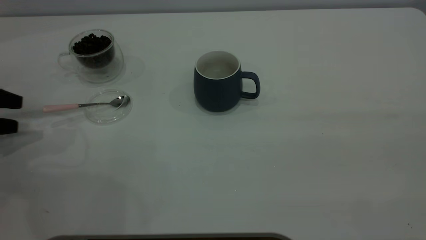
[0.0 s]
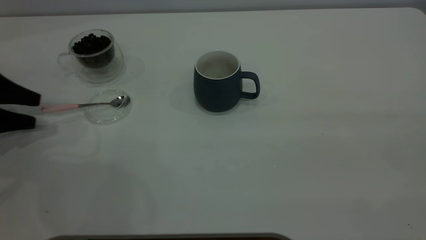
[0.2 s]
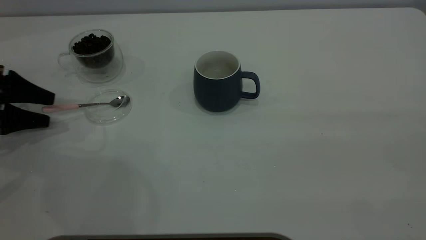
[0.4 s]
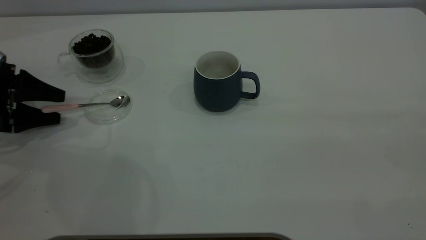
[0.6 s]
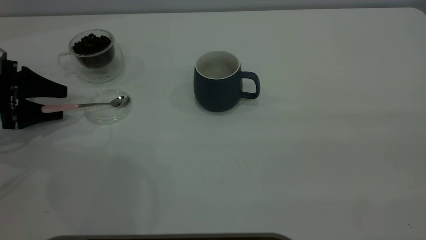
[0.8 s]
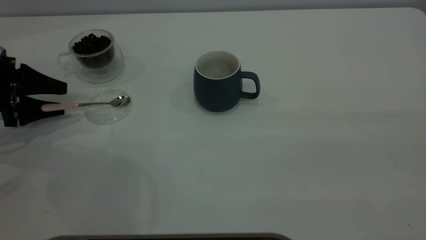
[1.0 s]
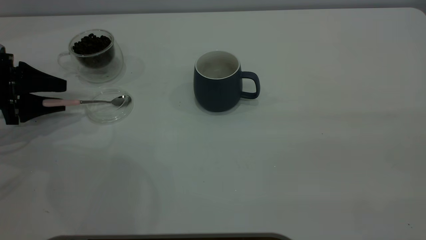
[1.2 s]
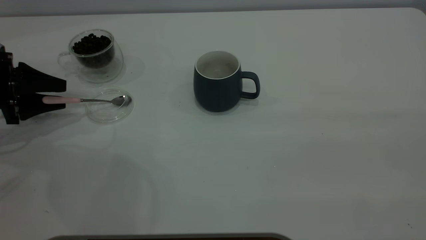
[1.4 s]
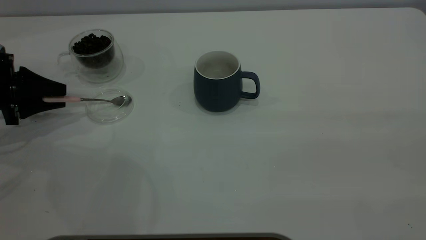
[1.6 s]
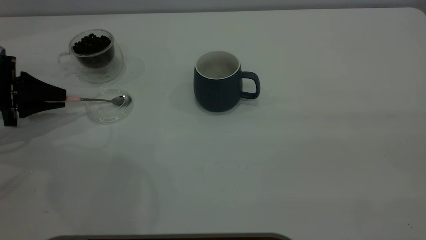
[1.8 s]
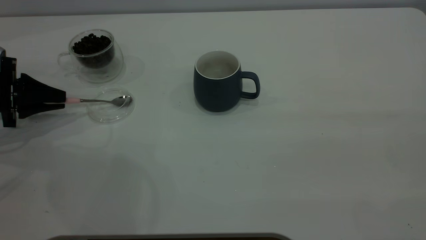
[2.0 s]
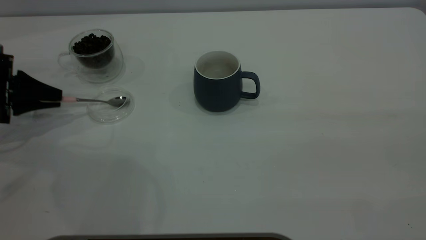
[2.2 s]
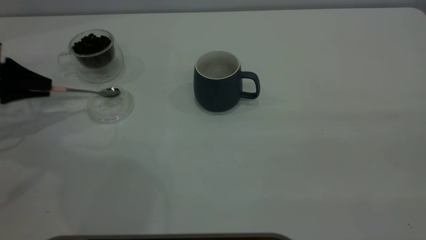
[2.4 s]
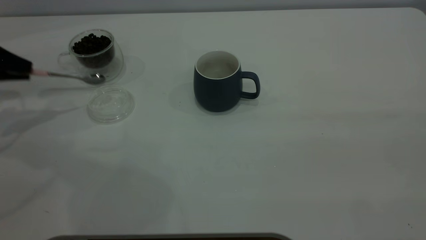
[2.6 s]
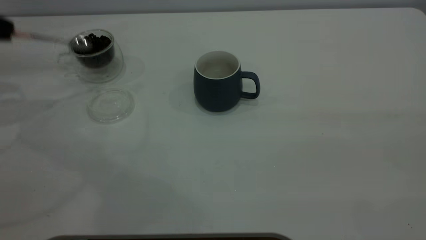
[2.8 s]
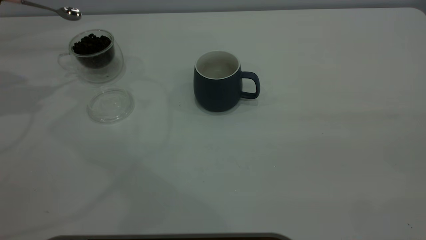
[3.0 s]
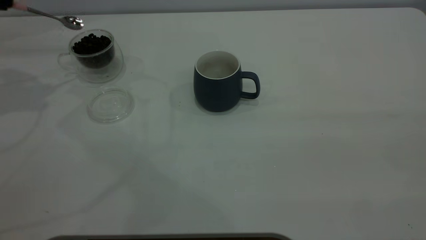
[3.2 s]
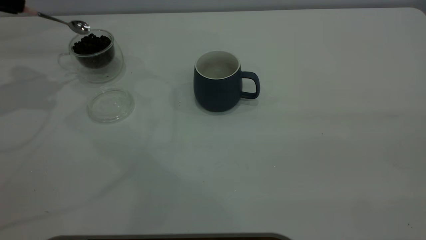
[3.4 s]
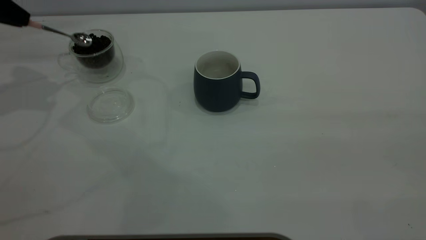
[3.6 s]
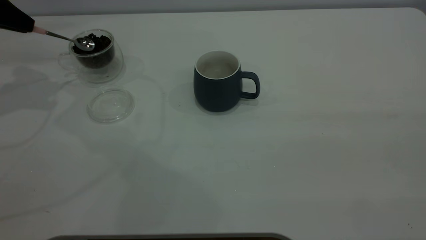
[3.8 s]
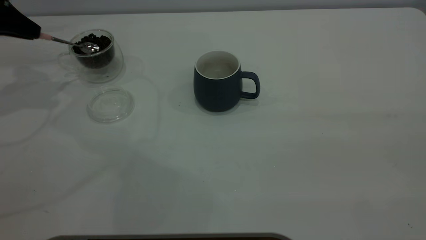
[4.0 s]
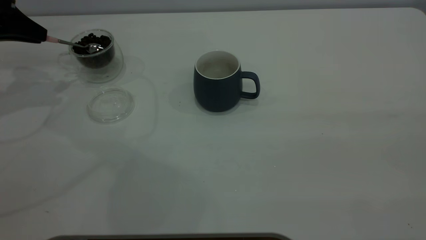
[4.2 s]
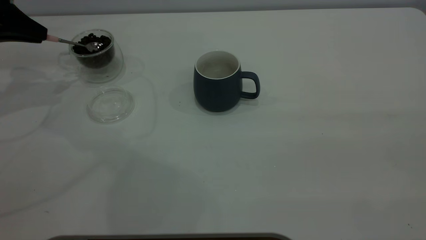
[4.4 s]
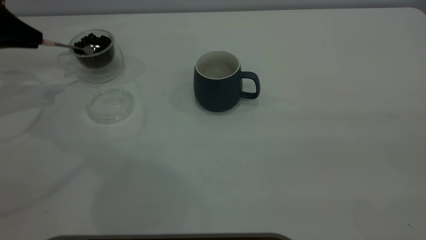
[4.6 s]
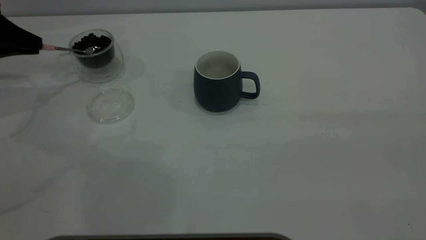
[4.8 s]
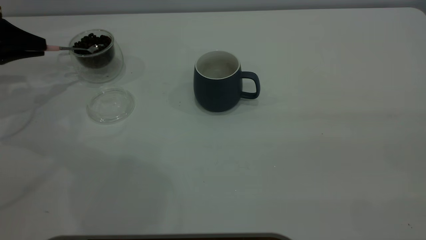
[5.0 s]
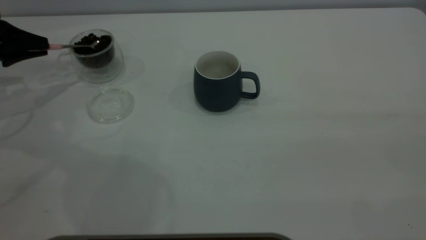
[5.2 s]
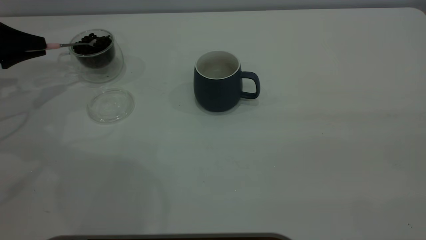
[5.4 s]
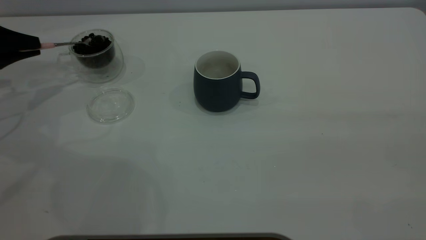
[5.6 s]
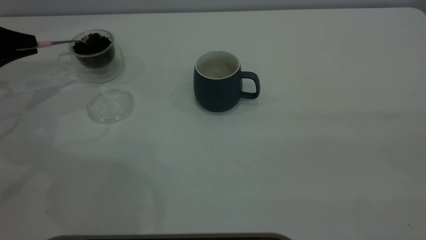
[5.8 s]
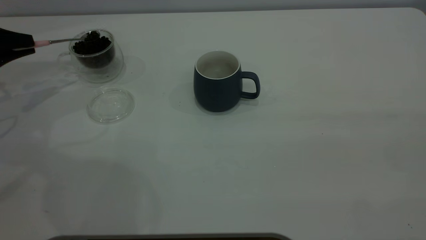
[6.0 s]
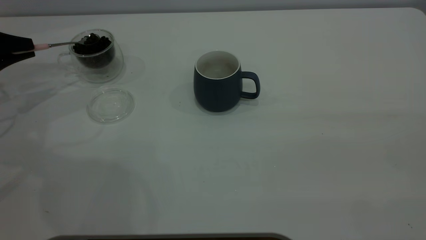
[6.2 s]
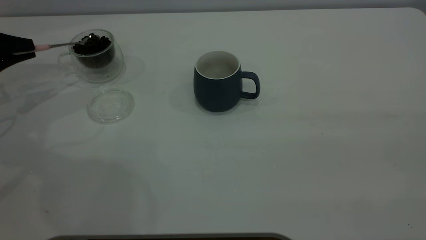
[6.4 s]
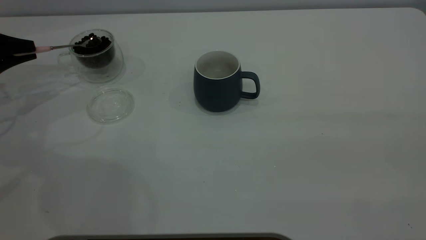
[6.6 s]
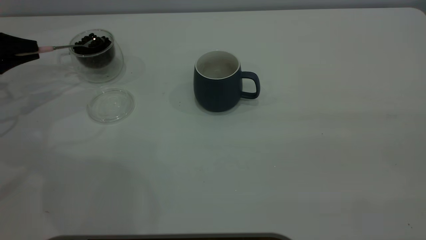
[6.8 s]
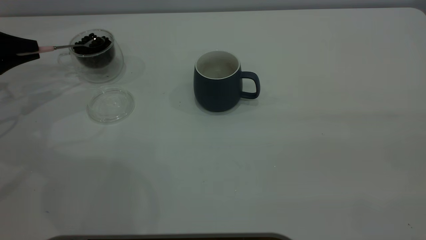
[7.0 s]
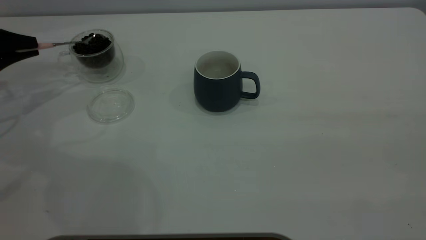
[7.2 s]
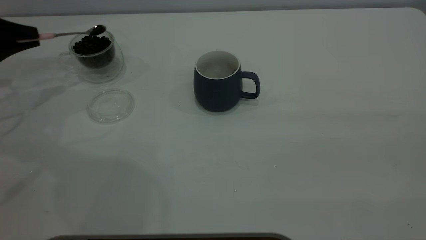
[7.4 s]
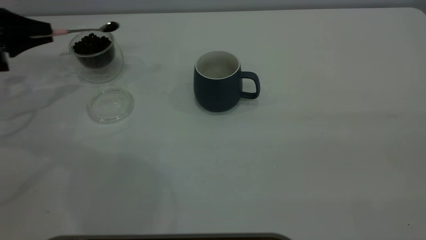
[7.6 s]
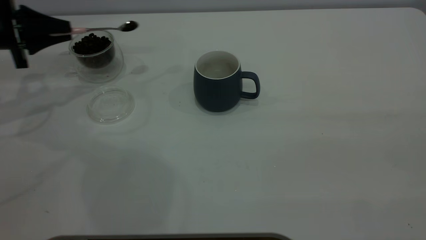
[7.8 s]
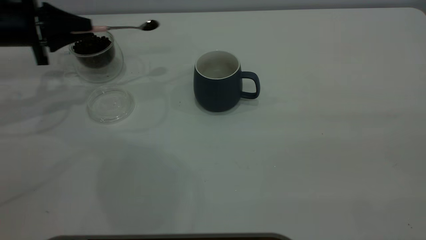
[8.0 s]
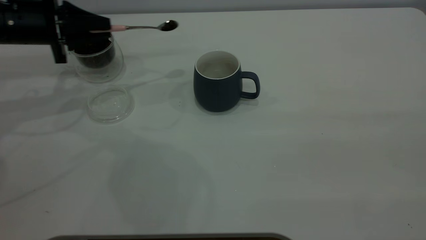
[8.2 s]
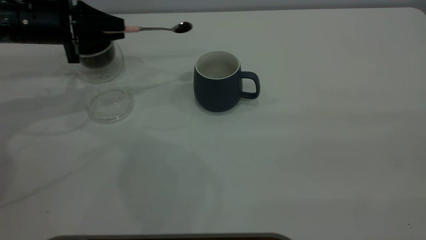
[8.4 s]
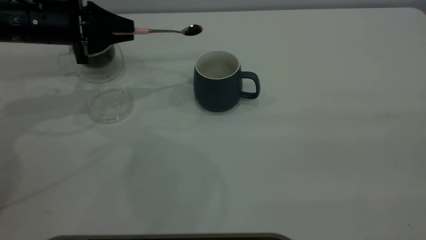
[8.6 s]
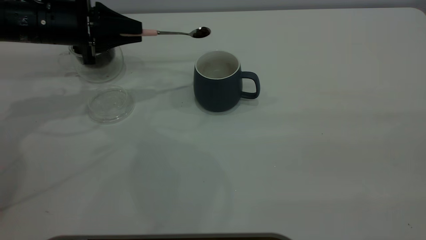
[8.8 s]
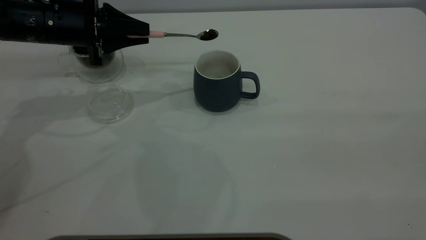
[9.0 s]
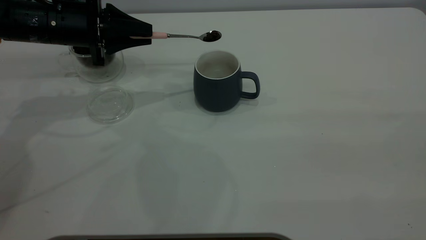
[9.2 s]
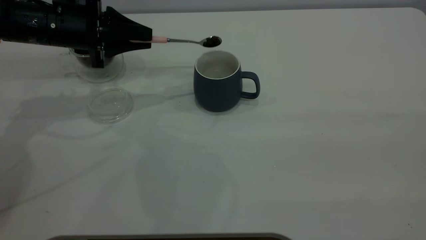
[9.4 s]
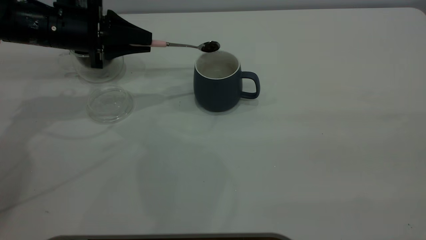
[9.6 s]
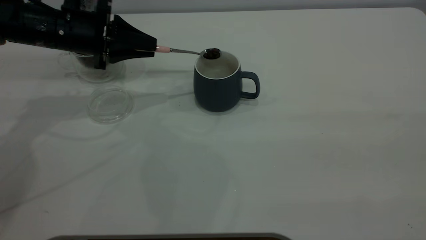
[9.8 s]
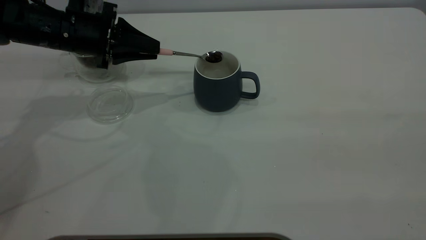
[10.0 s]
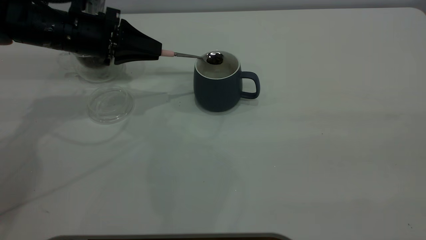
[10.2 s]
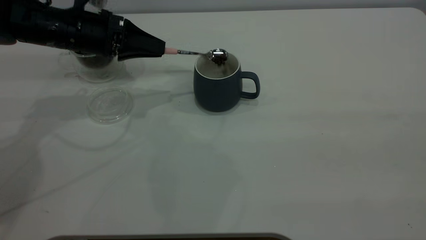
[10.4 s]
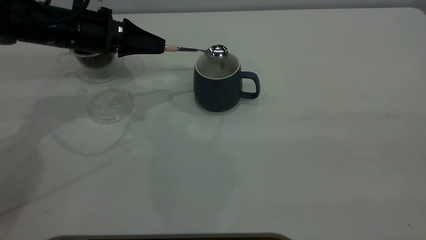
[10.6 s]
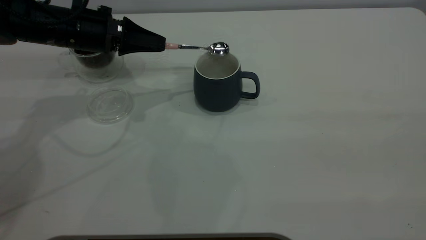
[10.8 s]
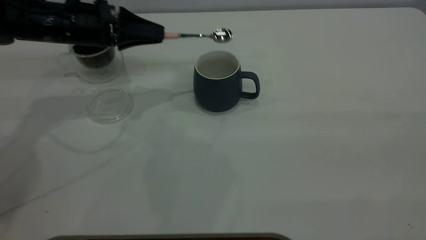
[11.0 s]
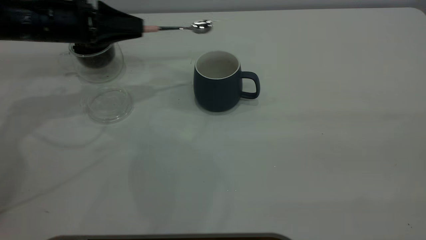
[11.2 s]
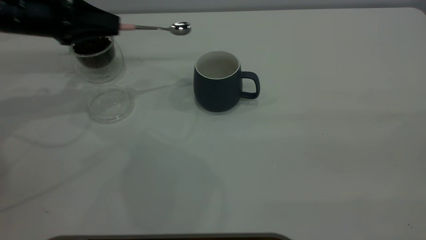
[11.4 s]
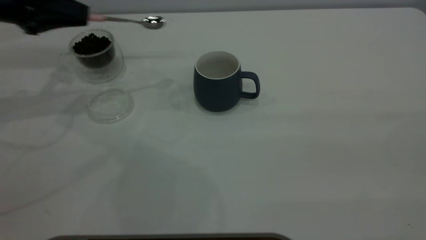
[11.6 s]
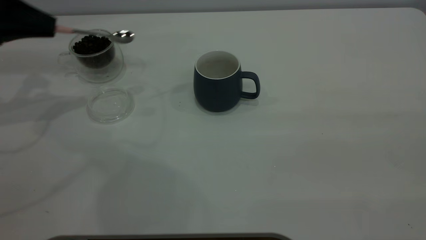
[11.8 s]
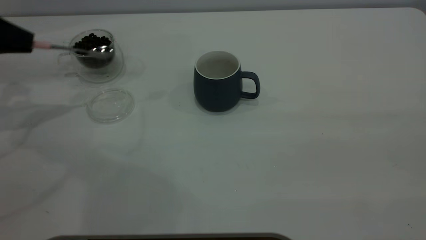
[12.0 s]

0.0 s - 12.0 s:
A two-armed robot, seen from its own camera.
Task of the whole recording: the right gripper place the grey cup in the center of the table, the left gripper take the pink spoon from the cup lid and scoop out the coffee beans from the coffee cup and put them into the grey cup, the left gripper put the spoon back into the cup lid.
Step, 0.0 s - 2.6 s: Pick up the spoon.
Step, 2.8 s - 11.0 s: Scoop a spoonful of beans into the cup.
0.0 s - 1.6 s: The left gripper ends up roughly 5 cm from where it was, and closes up.
1.6 s - 3.0 s: The left gripper heads upward, covering about 20 cm.
3.0 s - 4.4 s: The left gripper shifts some 10 cm downward.
4.4 s - 6.0 s: The left gripper heads downward, covering approximately 5 cm.
6.0 s - 7.6 s: The grippers make only small movements.
7.6 s - 9.0 s: The left gripper shifts approximately 15 cm to the right.
10.4 s - 12.0 s: The left gripper heads to the left, covering some 20 cm.

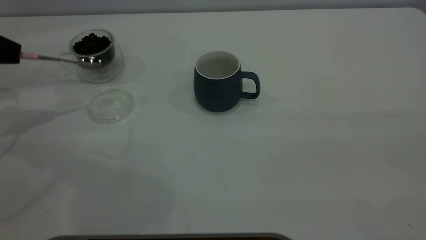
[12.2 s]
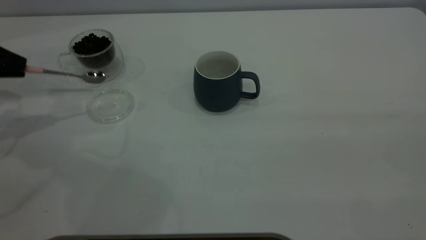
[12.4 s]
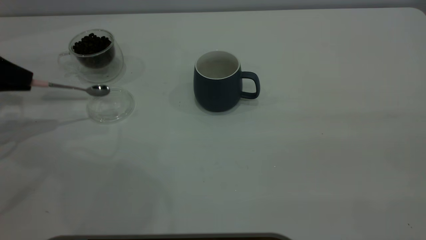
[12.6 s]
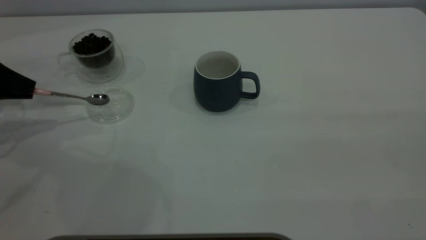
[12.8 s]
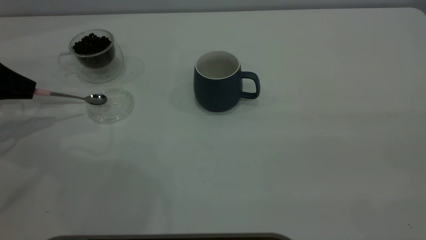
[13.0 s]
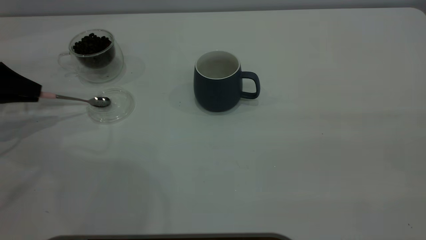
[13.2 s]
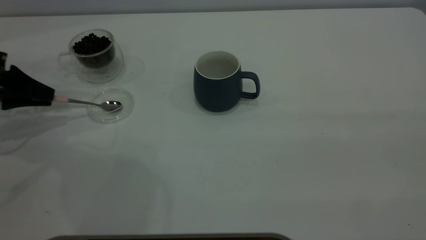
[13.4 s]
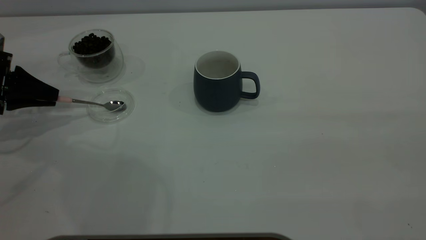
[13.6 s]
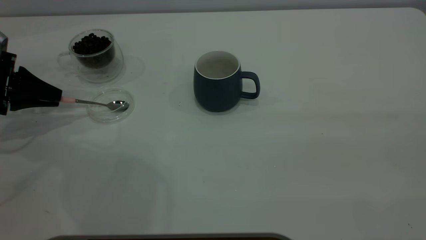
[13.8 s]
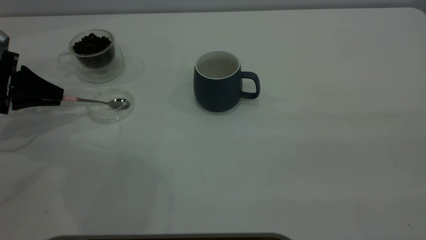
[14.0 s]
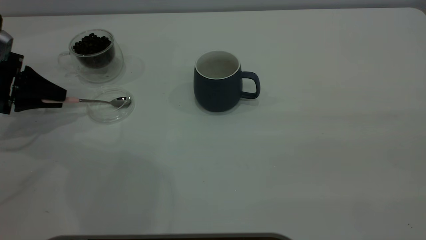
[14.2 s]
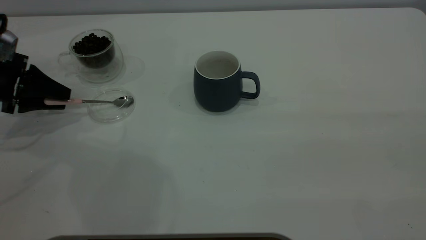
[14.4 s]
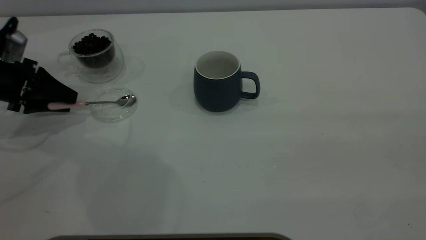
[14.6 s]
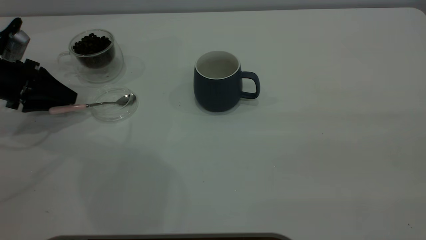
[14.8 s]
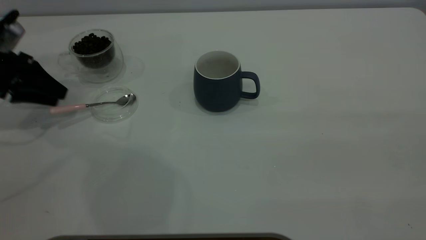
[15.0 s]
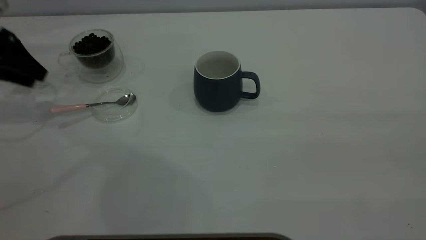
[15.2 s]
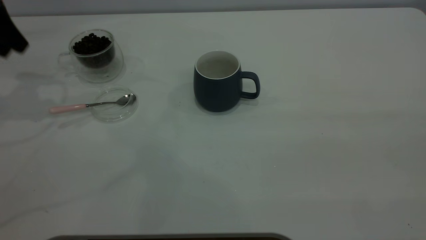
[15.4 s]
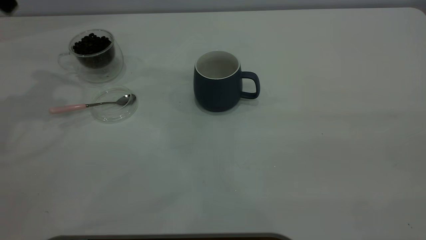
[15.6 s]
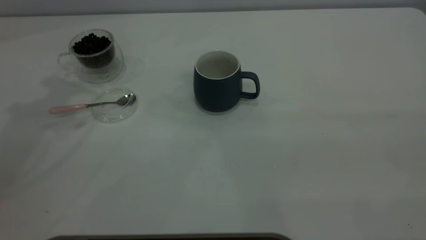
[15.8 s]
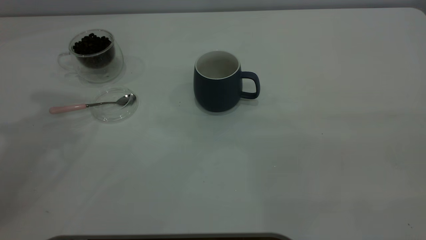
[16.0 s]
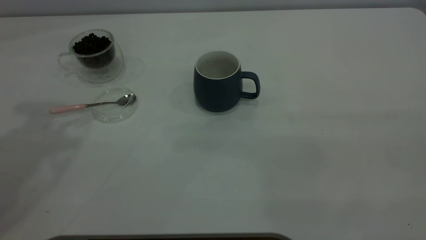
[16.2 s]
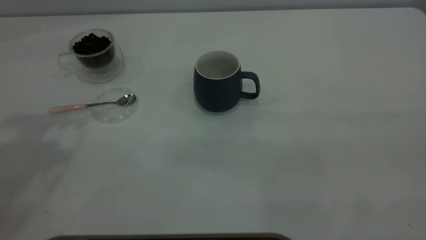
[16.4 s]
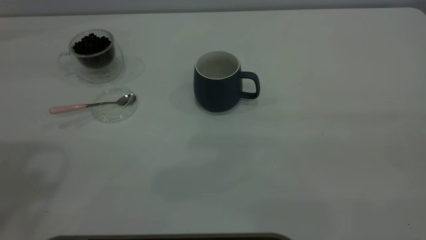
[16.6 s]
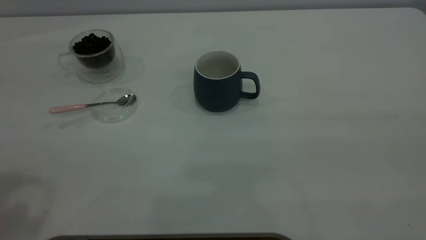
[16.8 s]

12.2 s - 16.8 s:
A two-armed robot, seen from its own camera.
Task of the whole recording: the right gripper place the grey cup in the center of the table, the left gripper take the pink spoon from the cup lid and scoop out the coffee beans from the coffee cup and put them into the grey cup, the left gripper put the spoon back into the cup lid.
Step, 12.2 s - 15.2 s: Place the spoon back in its original place.
12.2 s - 13.8 s: The left gripper heads downward, covering about 10 cm.
13.8 s - 15.2 s: The left gripper goes approximately 10 cm upward, and opens.
15.2 s - 16.8 s: The left gripper travels upward and backward by some 35 cm.
